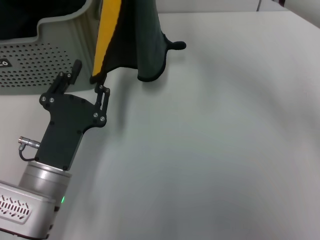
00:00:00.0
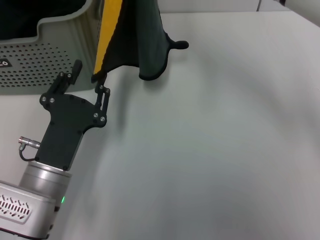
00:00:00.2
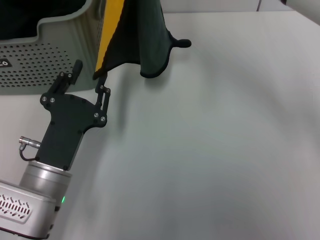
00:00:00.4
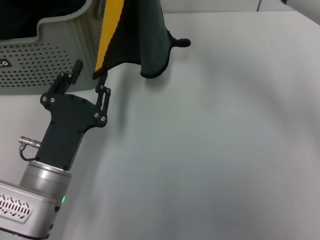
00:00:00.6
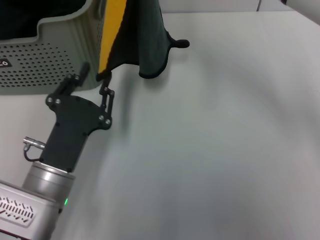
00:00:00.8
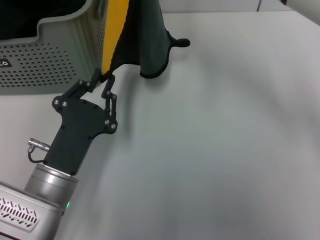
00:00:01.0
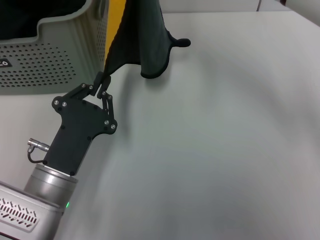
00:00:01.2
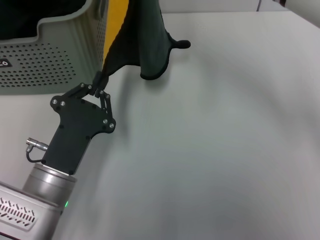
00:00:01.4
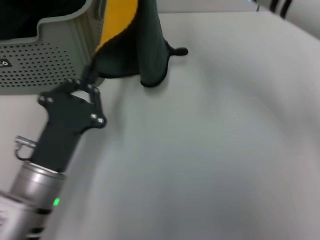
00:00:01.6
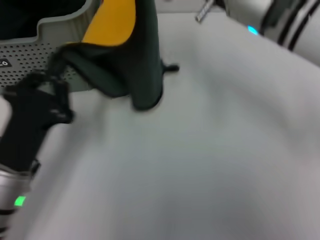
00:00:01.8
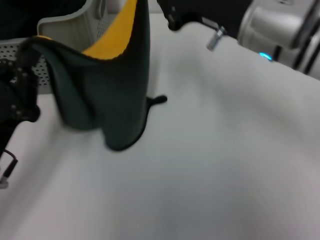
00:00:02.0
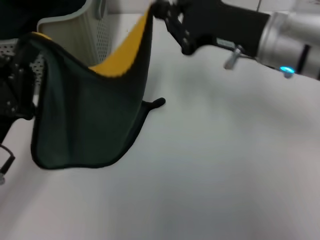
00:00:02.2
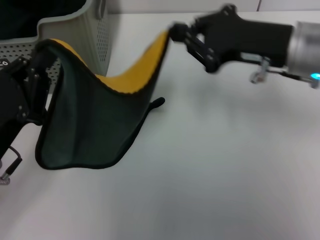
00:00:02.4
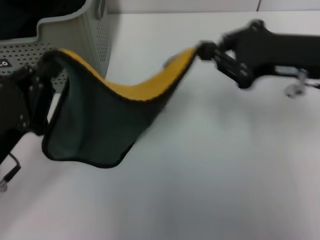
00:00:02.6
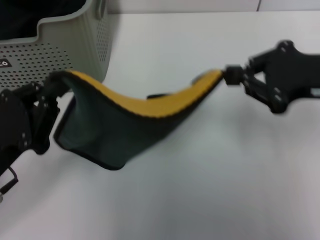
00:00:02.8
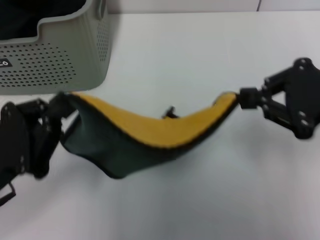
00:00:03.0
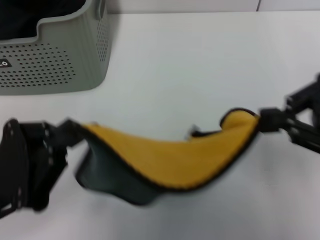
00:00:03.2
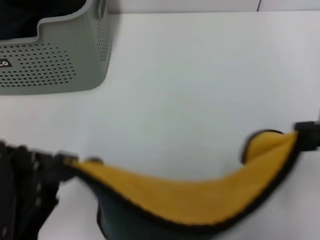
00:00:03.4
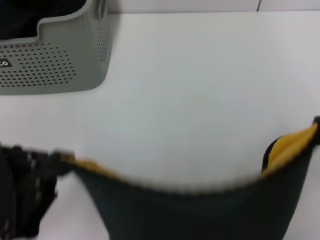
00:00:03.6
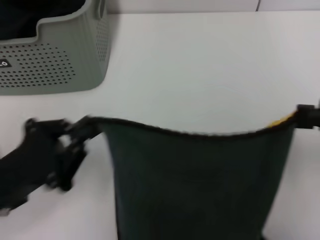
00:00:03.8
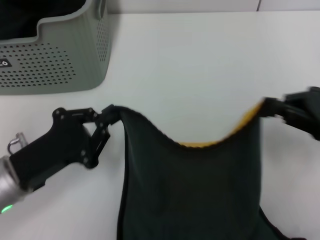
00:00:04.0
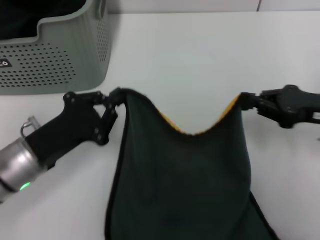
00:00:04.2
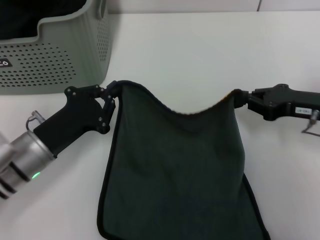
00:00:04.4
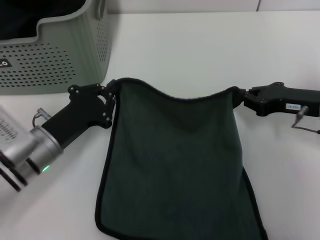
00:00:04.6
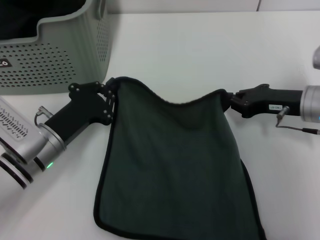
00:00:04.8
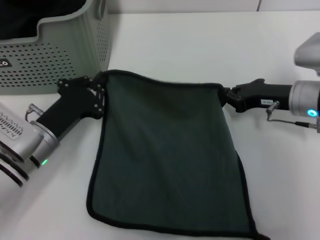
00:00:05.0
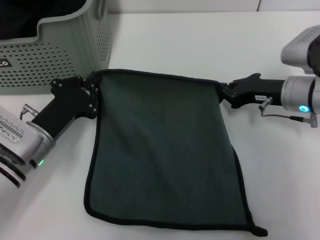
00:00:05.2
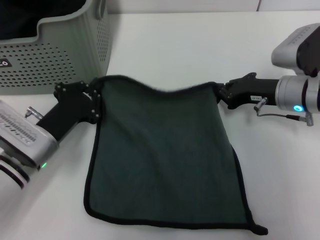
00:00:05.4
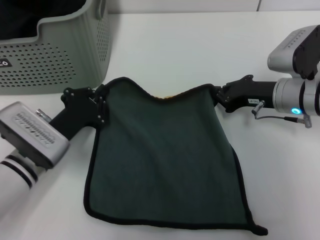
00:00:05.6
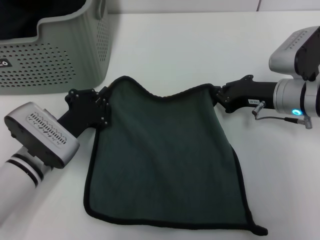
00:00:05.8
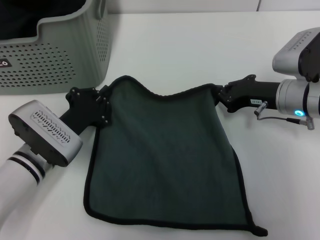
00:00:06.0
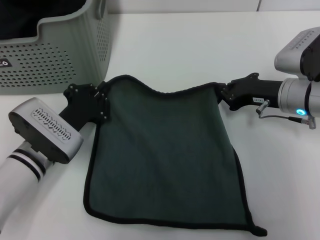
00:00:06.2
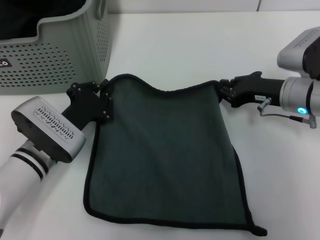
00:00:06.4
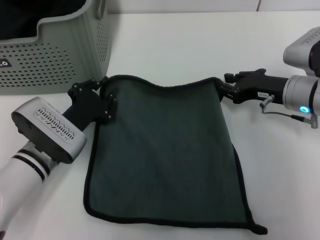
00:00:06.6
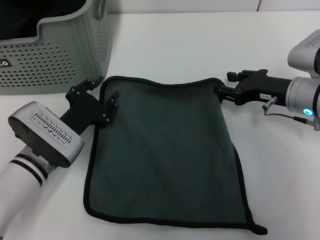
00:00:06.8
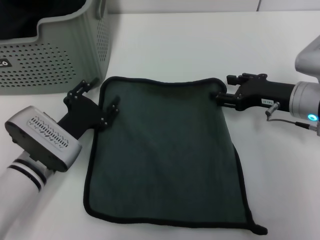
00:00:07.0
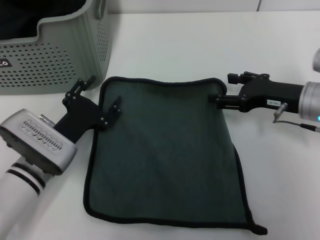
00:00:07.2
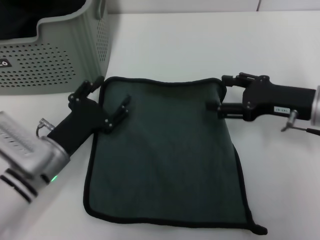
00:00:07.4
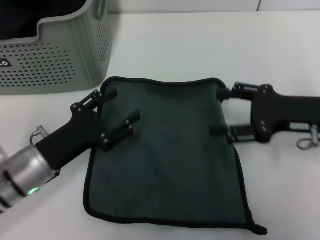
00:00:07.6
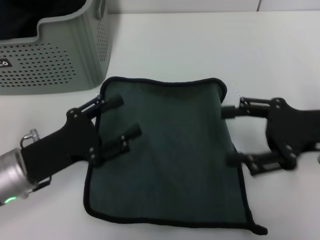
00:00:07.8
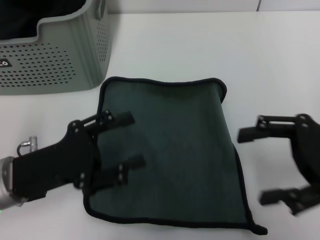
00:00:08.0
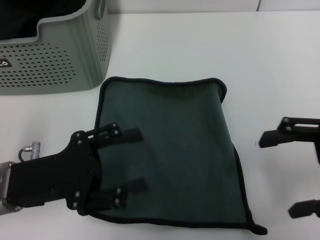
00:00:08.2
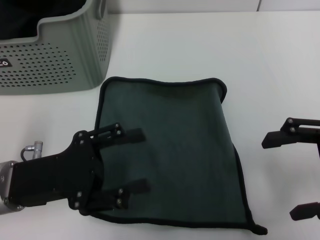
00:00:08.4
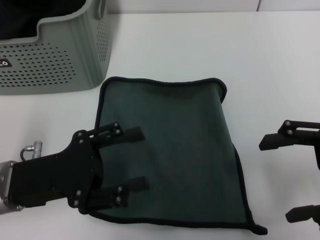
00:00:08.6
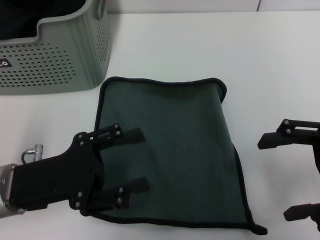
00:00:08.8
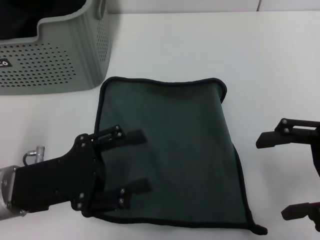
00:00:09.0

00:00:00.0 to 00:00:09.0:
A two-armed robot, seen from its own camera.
Task of the whole recording: pick up the towel from the storage box and lay it flat on the table.
Step, 00:00:00.0 to 00:00:06.8: Spread the towel flat with the right gripper.
00:00:00.0 to 00:00:01.6: The left gripper closes.
00:00:01.6 to 00:00:03.0: The right gripper goes roughly 20 cm to the right and backward; the left gripper travels to the left by some 10 cm.
00:00:03.0 to 00:00:04.4: The left gripper shifts roughly 5 cm forward, while the right gripper shifts about 15 cm downward and forward.
00:00:04.4 to 00:00:06.0: The left gripper moves some 5 cm, while the right gripper heads to the left, covering roughly 5 cm.
00:00:06.0 to 00:00:07.6: The right gripper shifts about 5 cm backward, and opens its fingers, while the left gripper moves roughly 5 cm, and opens its fingers.
00:00:07.6 to 00:00:09.0: The right gripper is displaced backward by approximately 5 cm. Meanwhile the left gripper heads upward, covering some 5 cm.
